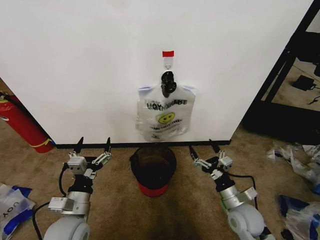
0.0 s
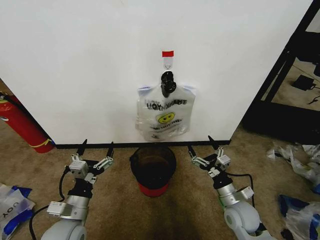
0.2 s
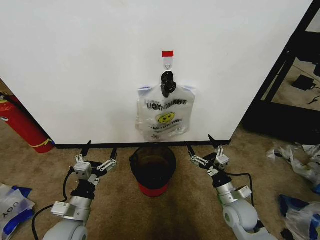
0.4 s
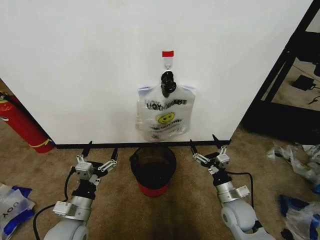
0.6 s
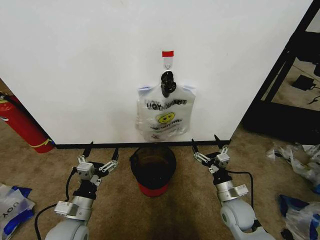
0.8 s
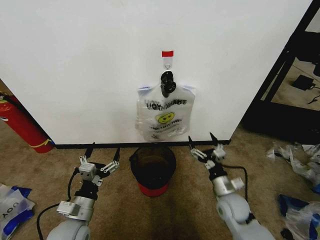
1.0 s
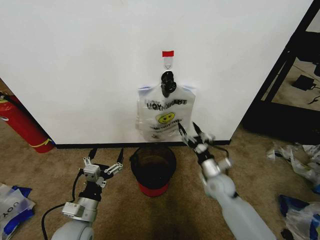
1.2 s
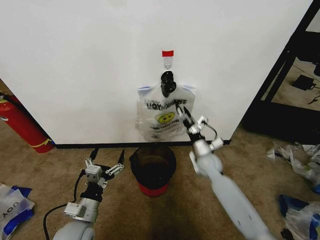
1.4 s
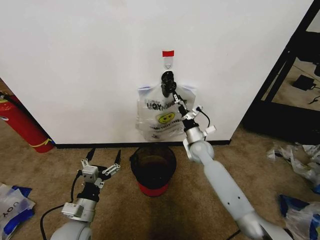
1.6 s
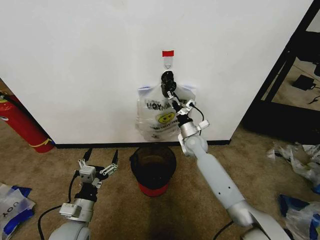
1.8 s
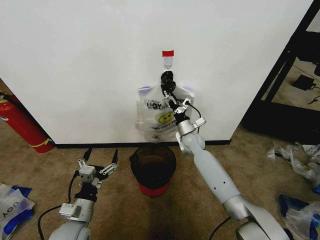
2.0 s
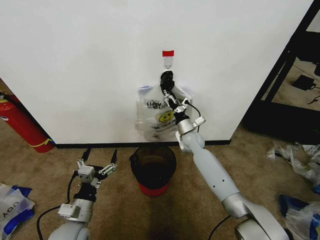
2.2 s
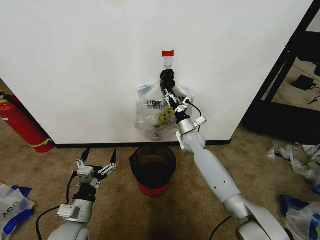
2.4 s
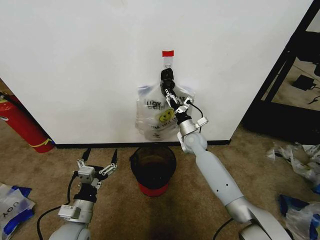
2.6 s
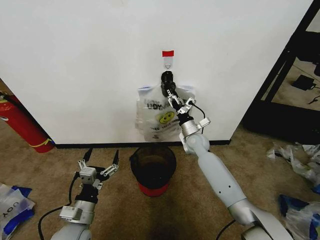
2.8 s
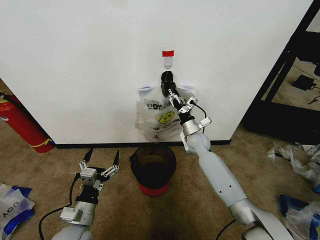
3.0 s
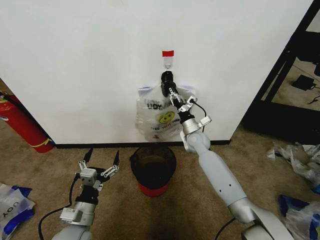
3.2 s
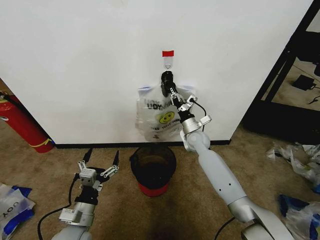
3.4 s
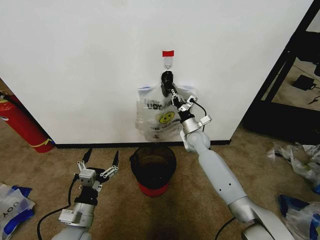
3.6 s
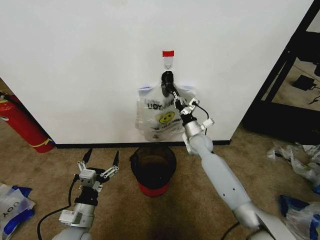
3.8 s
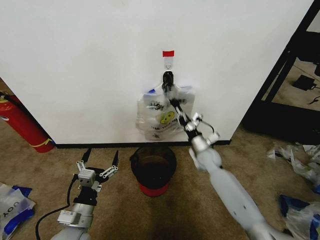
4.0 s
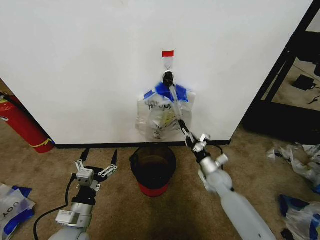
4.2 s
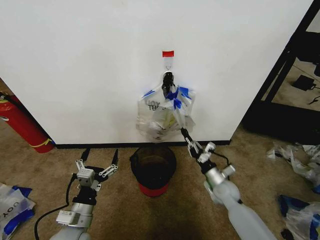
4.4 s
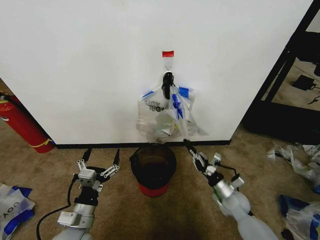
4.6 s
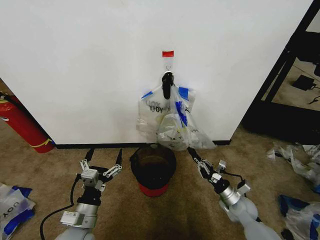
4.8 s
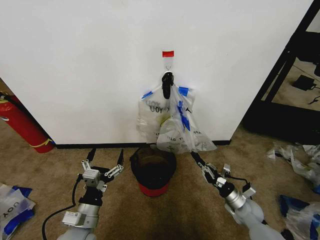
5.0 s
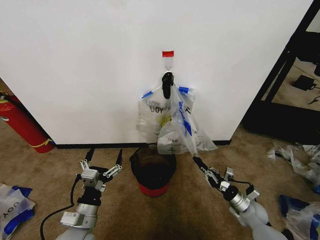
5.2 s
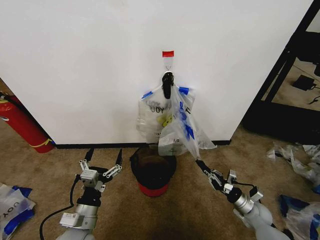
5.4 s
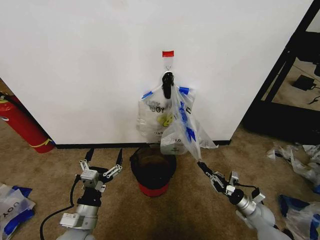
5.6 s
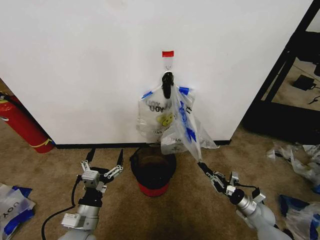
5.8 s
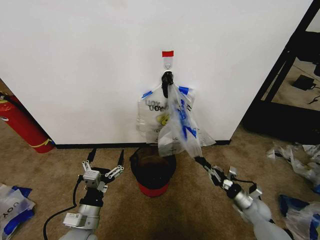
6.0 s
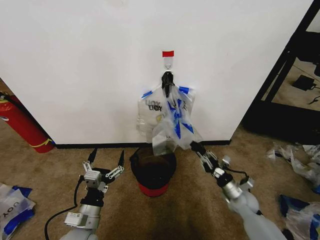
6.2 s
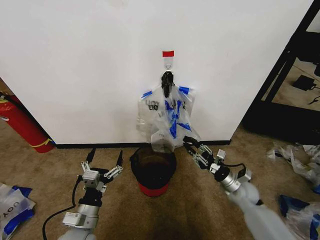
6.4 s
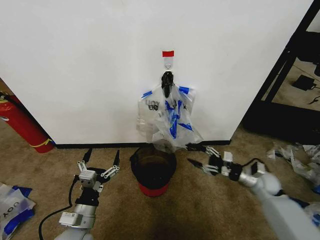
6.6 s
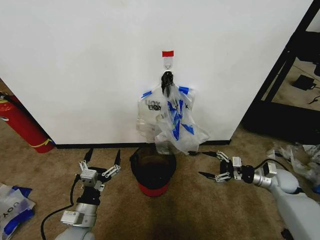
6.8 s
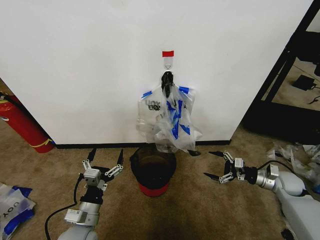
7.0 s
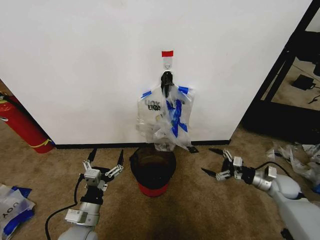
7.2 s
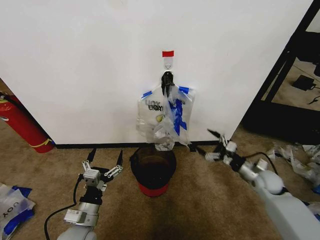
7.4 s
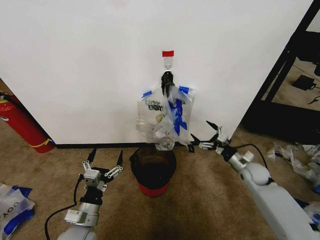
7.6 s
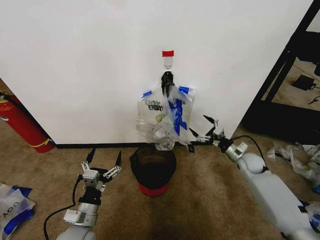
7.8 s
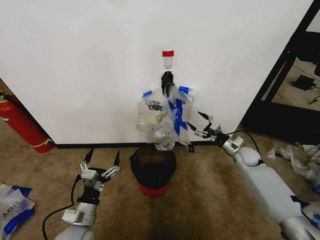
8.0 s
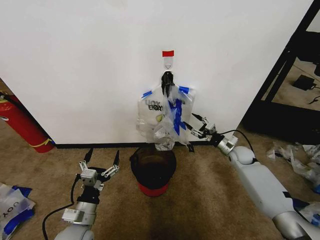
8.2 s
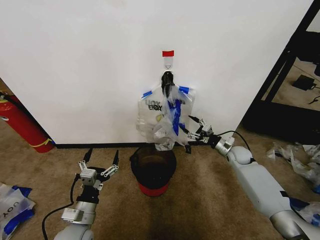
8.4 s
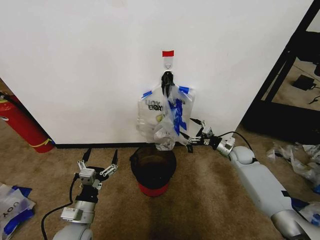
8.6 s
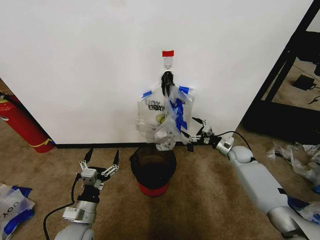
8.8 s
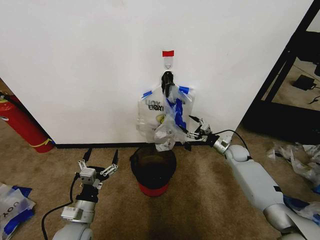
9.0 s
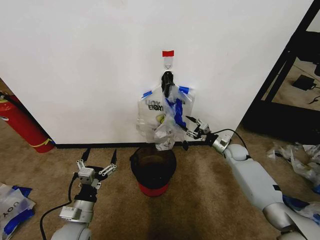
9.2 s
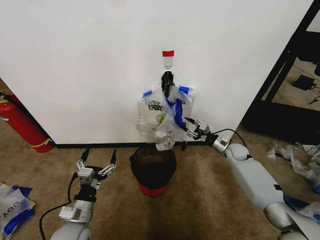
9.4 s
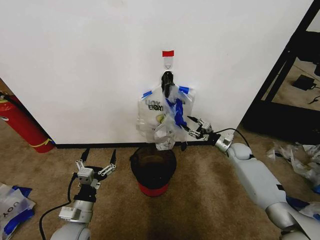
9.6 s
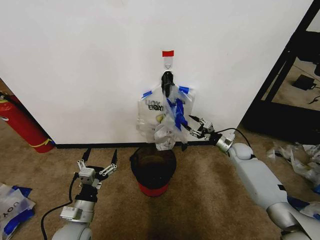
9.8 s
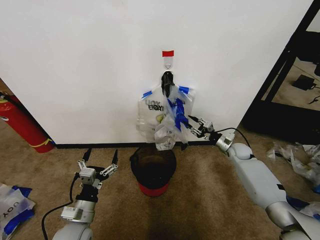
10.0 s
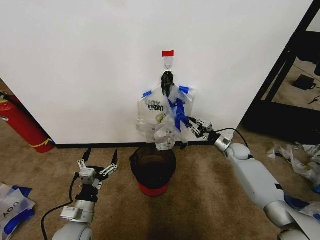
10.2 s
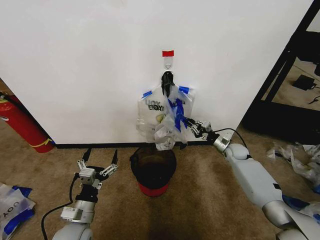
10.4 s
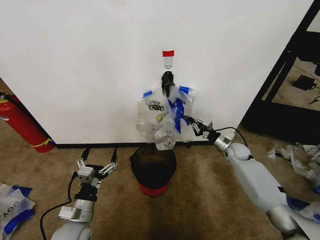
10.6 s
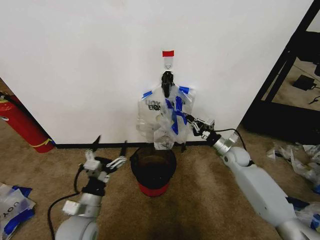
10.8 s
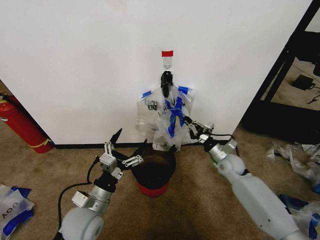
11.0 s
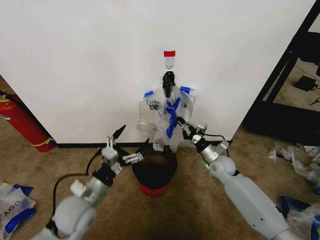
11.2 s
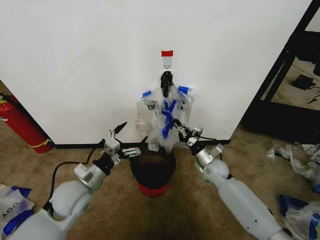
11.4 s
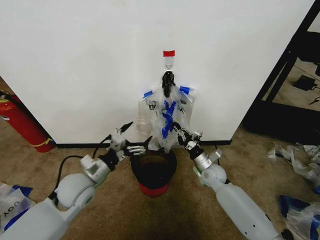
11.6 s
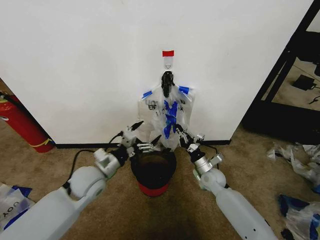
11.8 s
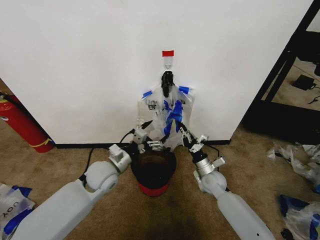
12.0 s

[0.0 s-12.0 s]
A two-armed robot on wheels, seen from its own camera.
Task of the whole recording: Pick up the garbage bag from the wall and place it over the trash bin.
1.6 to 3.0 s: The right gripper closes up.
3.0 to 4.4 s: The right gripper moves backward, downward and to the right, roughly 20 cm, and closes.
4.4 to 6.0 s: The right gripper shifts some 15 cm to the right and downward.
6.0 to 7.6 s: The right gripper goes left and right, about 15 cm each way, reversing 2 times, and opens up.
7.6 to 9.0 s: The right gripper travels forward by some 10 cm.
9.0 to 10.4 s: The right gripper closes up.
10.4 to 12.0 s: The left gripper heads forward and upward, covering approximately 15 cm, while the right gripper travels to the left and backward by some 20 cm.

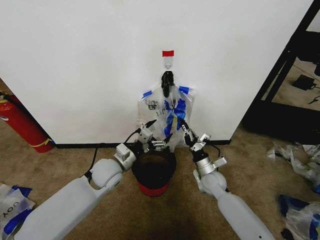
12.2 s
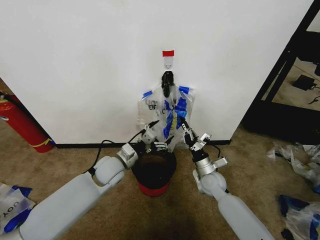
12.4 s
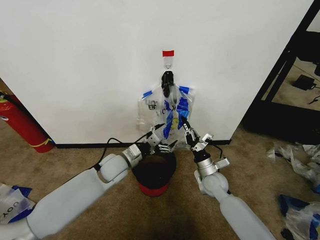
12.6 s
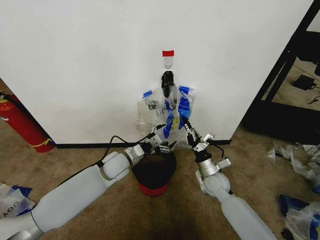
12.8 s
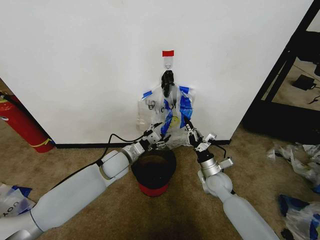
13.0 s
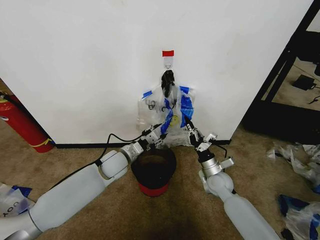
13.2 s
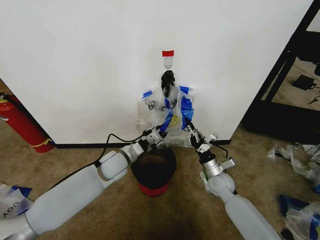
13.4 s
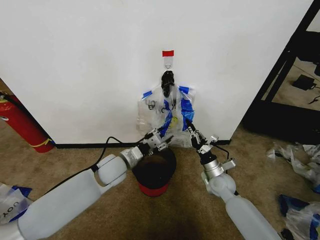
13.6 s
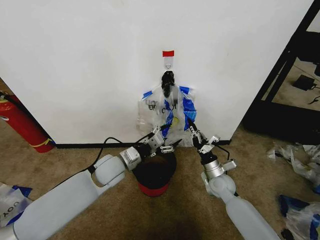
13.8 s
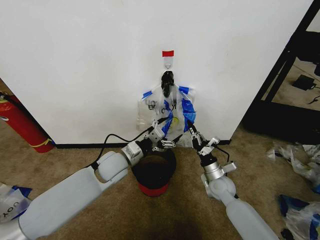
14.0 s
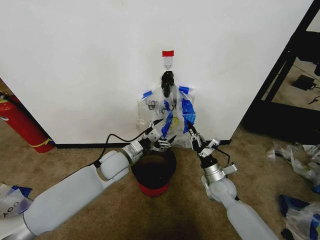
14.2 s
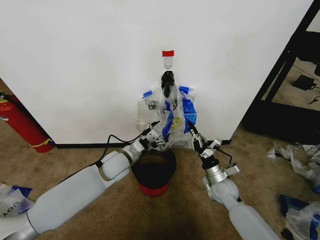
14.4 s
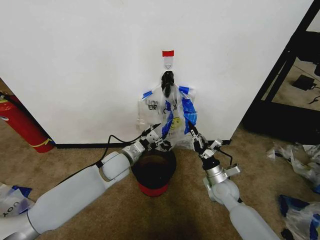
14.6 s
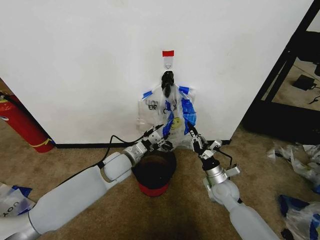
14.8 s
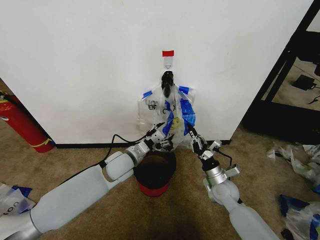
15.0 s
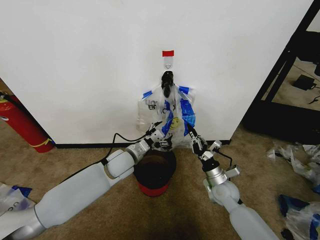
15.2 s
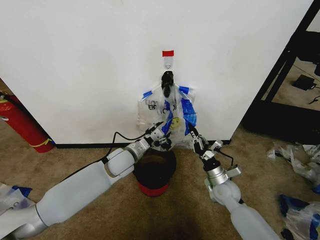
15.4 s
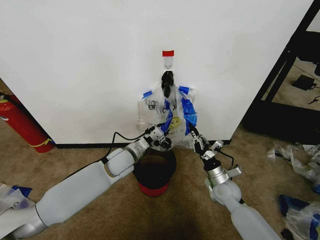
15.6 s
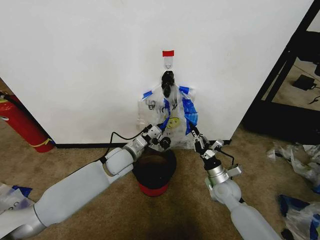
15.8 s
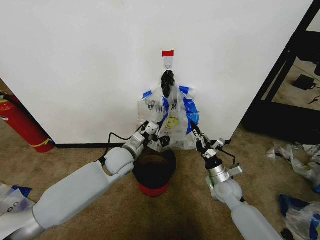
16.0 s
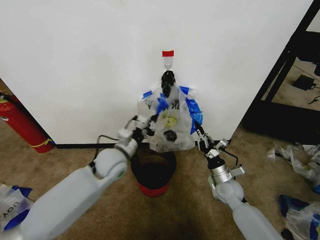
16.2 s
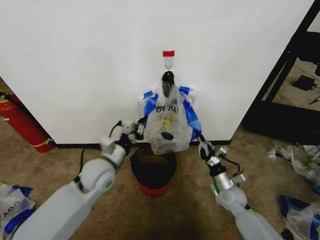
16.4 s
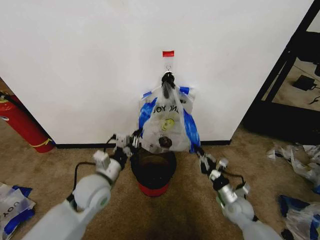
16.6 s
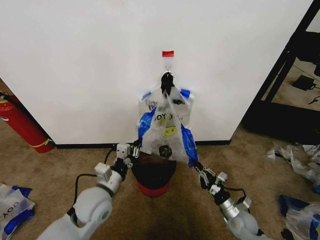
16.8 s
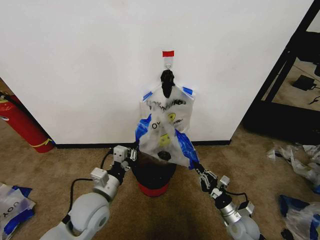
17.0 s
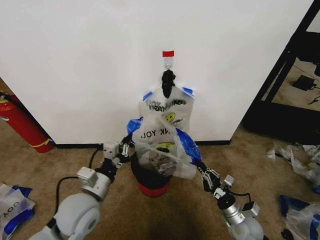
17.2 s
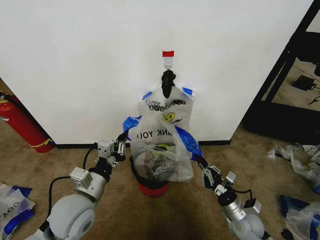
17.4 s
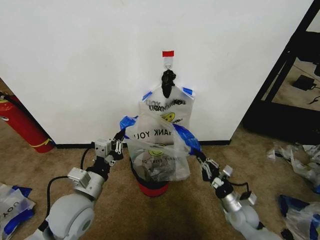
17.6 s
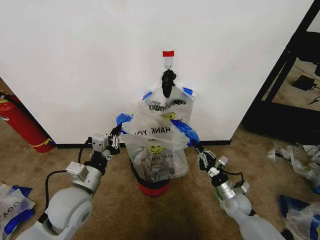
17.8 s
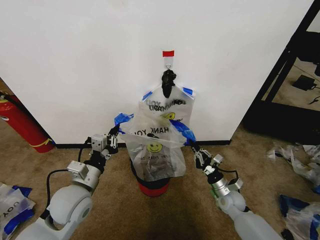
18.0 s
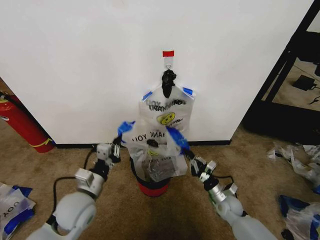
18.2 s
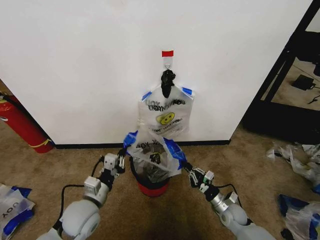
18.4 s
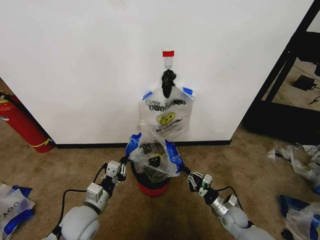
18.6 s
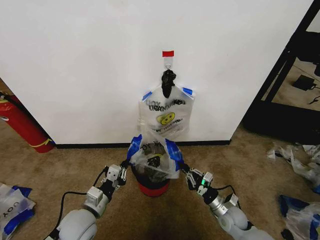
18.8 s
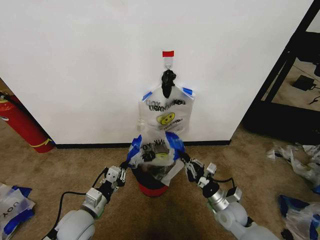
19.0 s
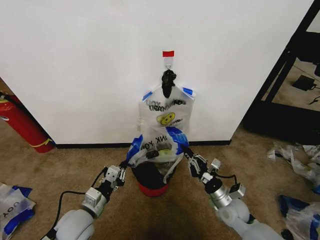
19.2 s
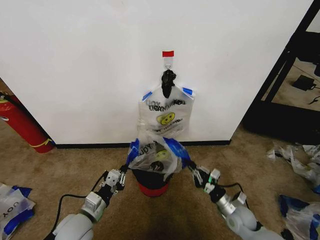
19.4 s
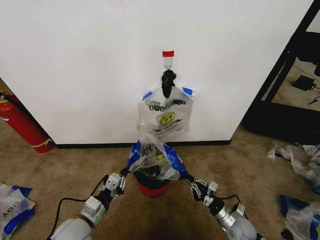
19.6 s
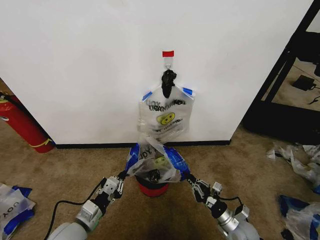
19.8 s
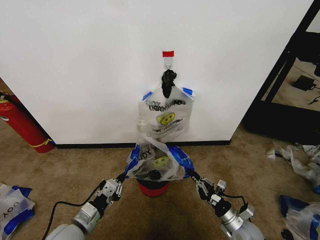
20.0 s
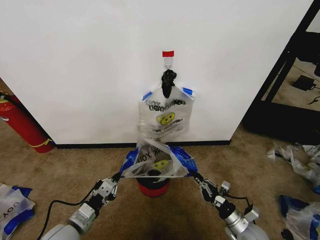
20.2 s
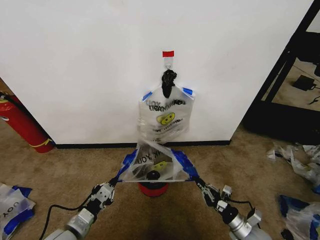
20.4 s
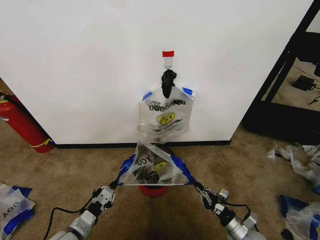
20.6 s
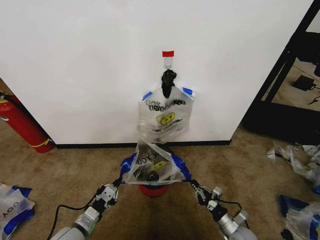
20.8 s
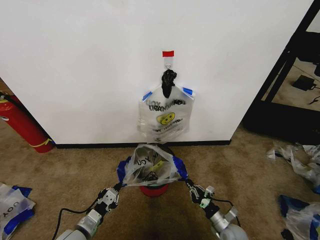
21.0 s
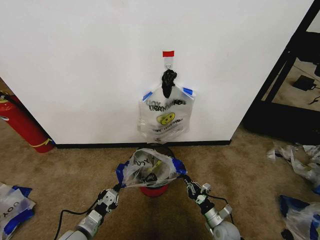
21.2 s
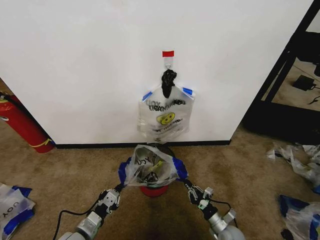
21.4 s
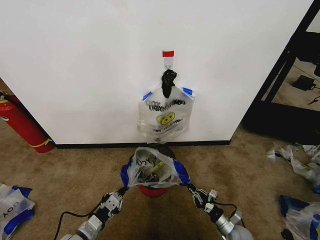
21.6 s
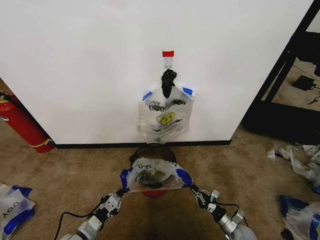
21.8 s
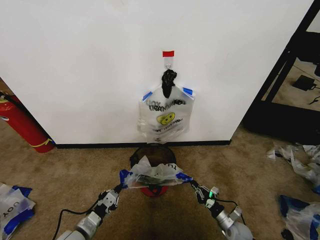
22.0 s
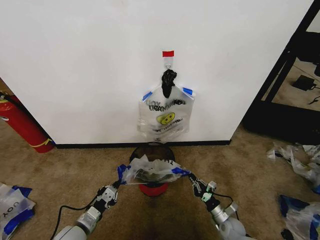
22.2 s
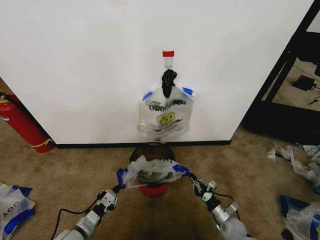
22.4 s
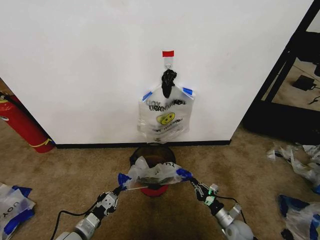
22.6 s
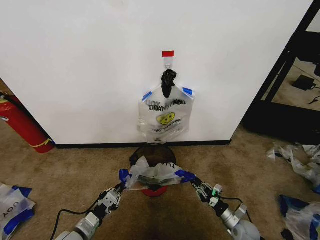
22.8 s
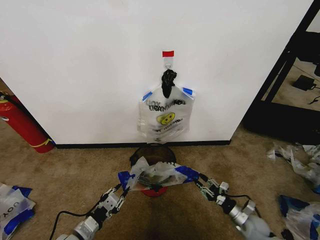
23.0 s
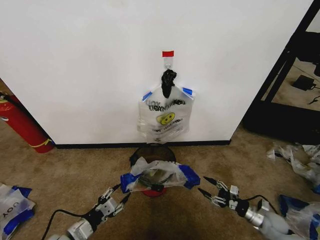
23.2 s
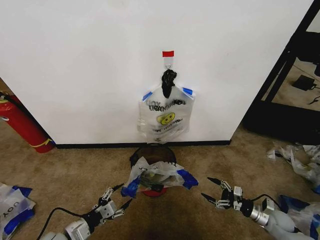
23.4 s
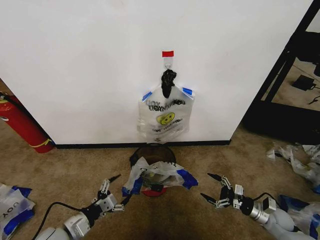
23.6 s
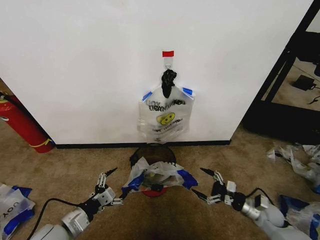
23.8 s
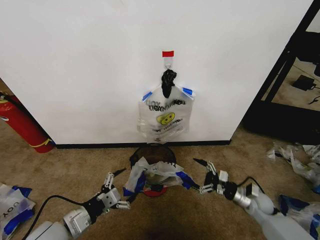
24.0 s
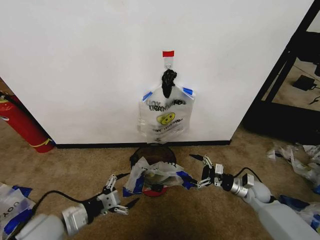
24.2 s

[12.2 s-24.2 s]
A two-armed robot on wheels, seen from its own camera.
Task of the whole recording: Pick up the garbage bag from the wall and place it over the trash bin.
12.2 to 13.8 s: The left gripper closes and opens again.
13.8 to 15.2 s: The grippers make only small movements.
15.2 to 16.6 s: The left gripper shifts some 10 cm backward and to the left, and closes its fingers. Meanwhile the right gripper moves downward and to the right, some 10 cm.
16.6 to 18.2 s: The right gripper moves some 5 cm backward and comes back. The left gripper changes place by roughly 5 cm.
18.2 to 19.8 s: Both grippers move backward, some 5 cm. The right gripper reaches approximately 10 cm upward, then returns.
19.8 to 21.2 s: The grippers both shift downward by some 10 cm.
21.2 to 22.6 s: The right gripper travels to the right by roughly 5 cm.
22.6 to 24.2 s: The left gripper shifts some 15 cm upward, and opens its fingers; the right gripper moves upward and forward, roughly 20 cm, and opens its fingers.
